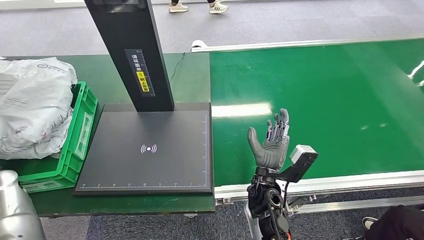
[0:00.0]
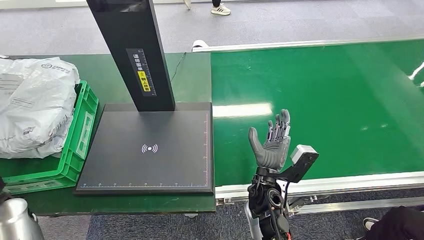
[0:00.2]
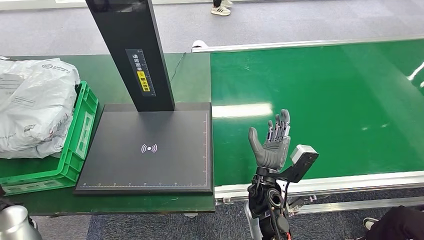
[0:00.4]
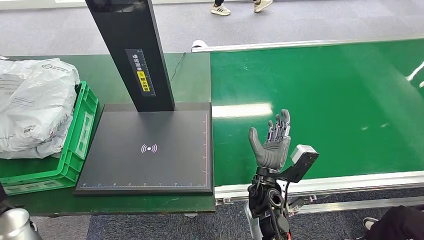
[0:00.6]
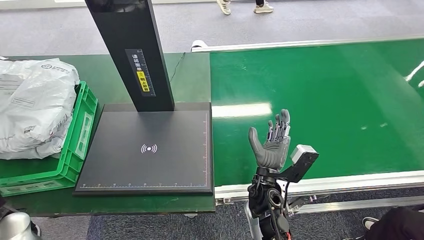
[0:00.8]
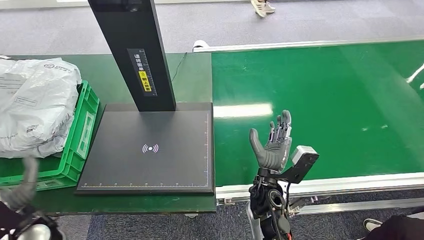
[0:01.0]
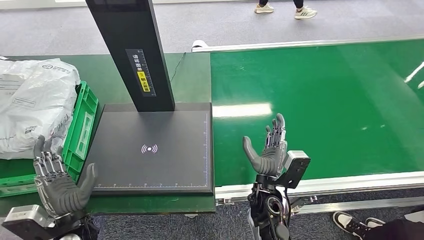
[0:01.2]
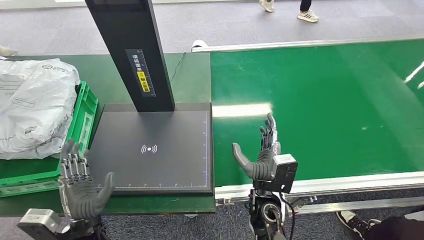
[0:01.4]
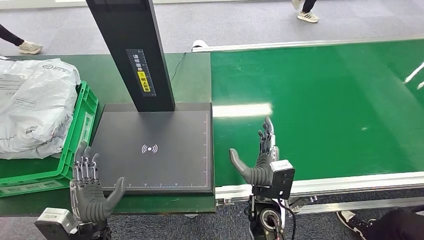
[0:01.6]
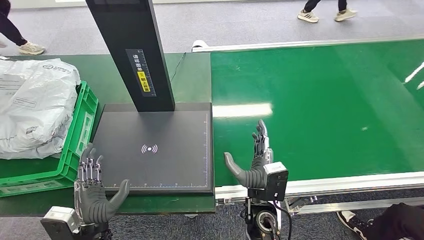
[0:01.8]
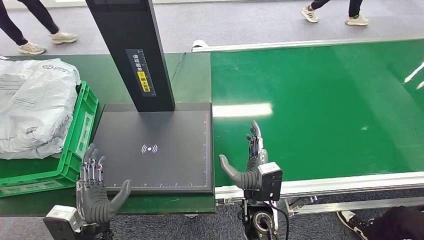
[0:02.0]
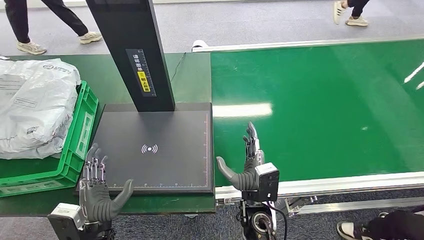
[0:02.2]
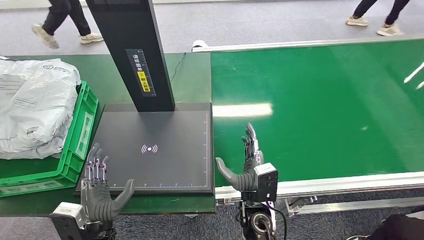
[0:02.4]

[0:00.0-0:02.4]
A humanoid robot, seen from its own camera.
Step, 0:00.0 to 0:02.4: Place the package into the parcel locker.
0:00.0 to 0:01.2: The left hand is displaced to the right and backward by approximately 25 cm.
0:01.2 to 0:02.4: The left hand moves about 5 cm.

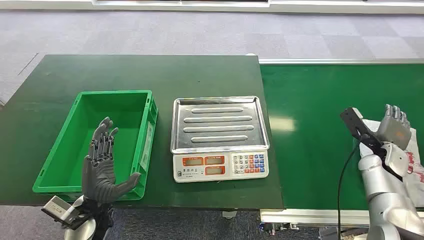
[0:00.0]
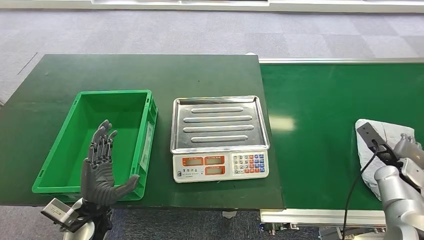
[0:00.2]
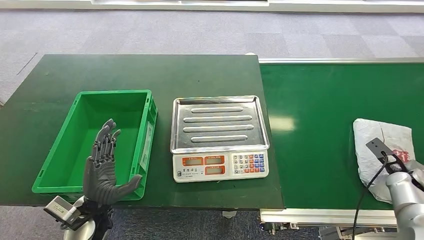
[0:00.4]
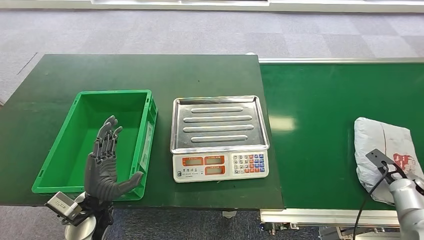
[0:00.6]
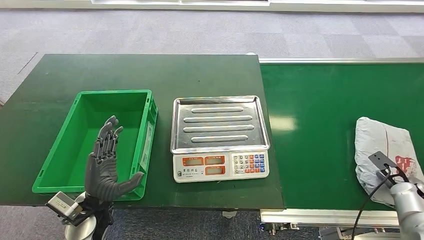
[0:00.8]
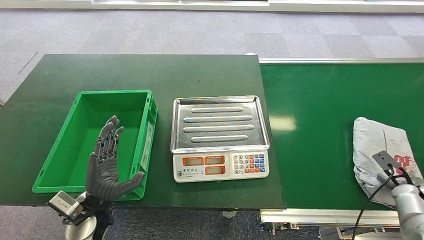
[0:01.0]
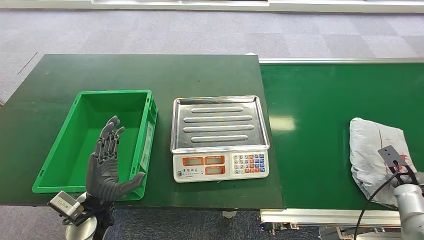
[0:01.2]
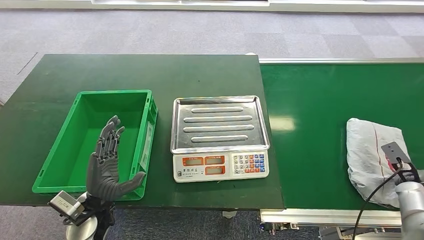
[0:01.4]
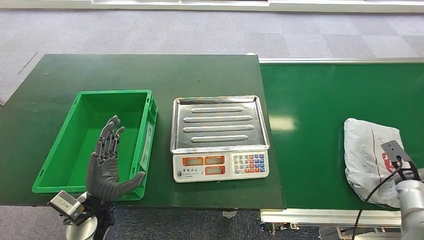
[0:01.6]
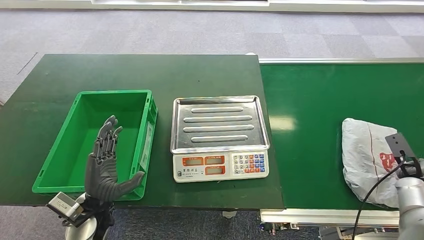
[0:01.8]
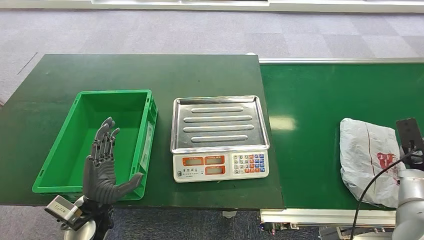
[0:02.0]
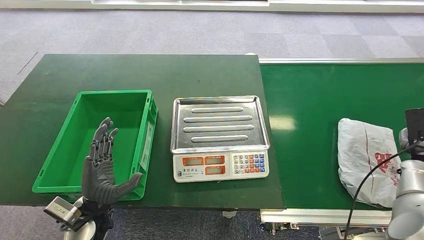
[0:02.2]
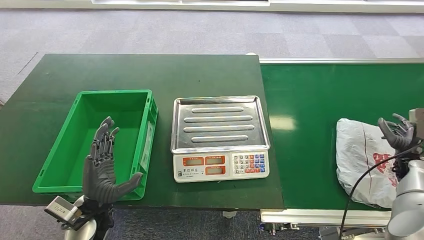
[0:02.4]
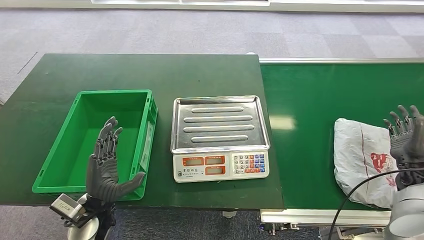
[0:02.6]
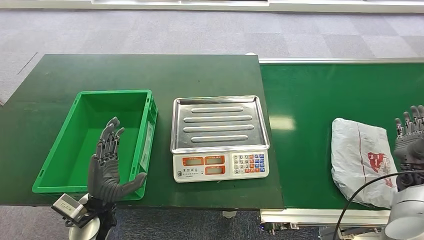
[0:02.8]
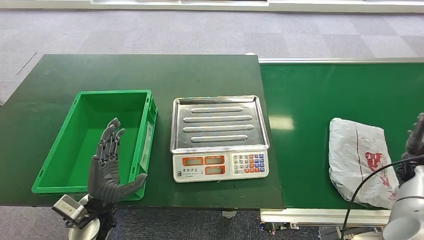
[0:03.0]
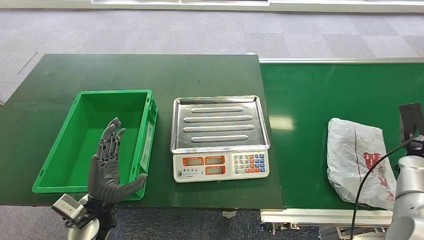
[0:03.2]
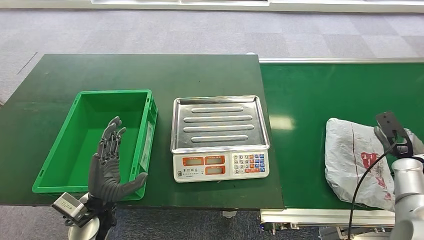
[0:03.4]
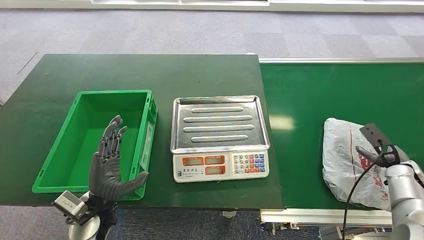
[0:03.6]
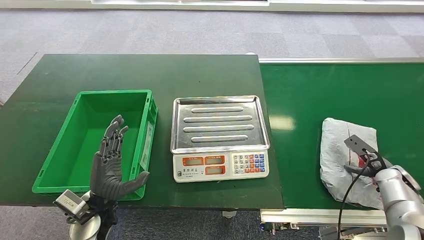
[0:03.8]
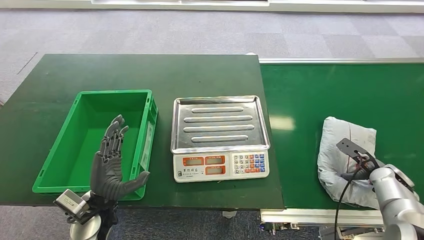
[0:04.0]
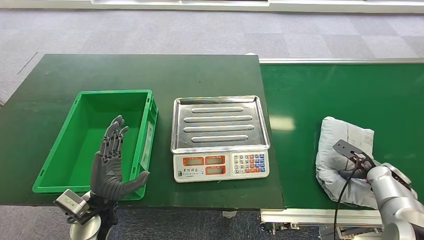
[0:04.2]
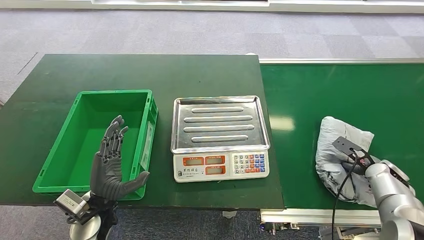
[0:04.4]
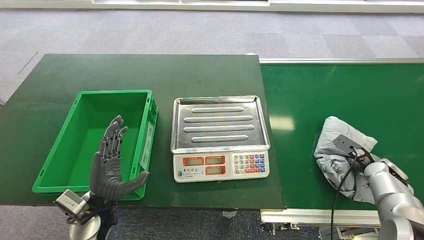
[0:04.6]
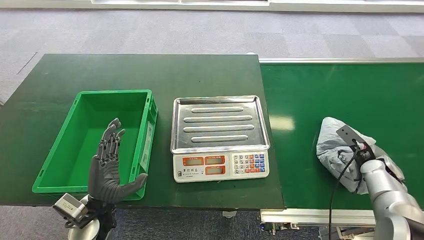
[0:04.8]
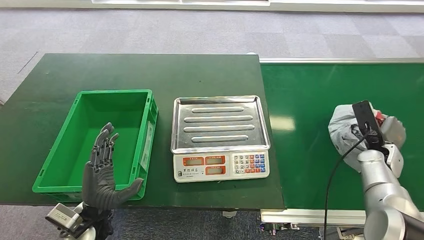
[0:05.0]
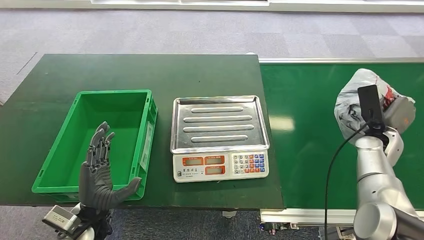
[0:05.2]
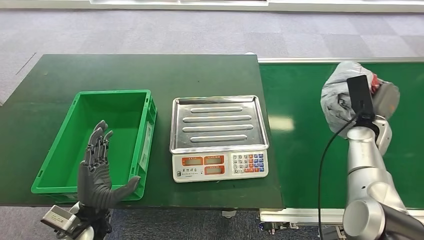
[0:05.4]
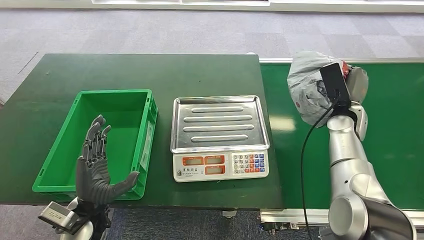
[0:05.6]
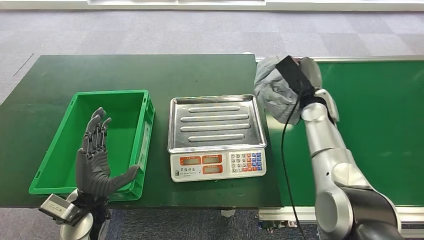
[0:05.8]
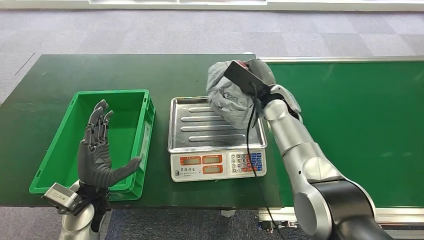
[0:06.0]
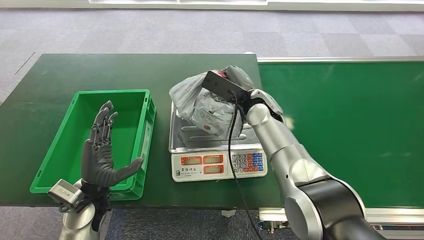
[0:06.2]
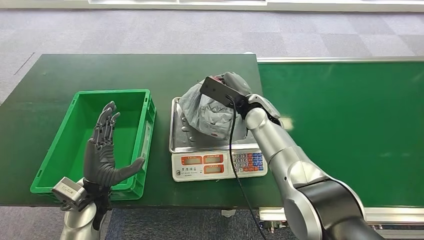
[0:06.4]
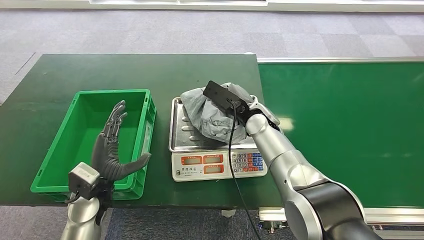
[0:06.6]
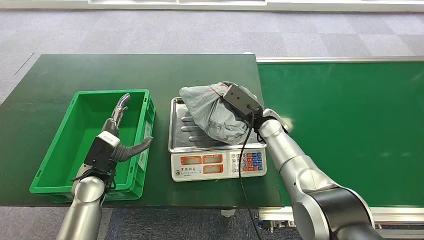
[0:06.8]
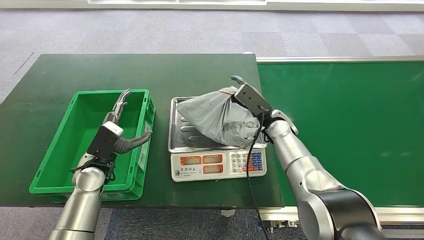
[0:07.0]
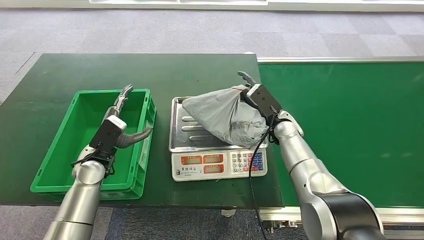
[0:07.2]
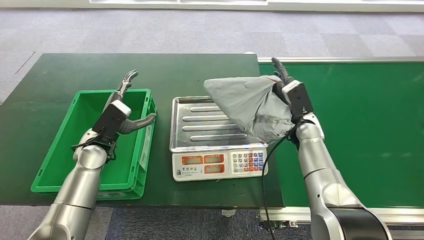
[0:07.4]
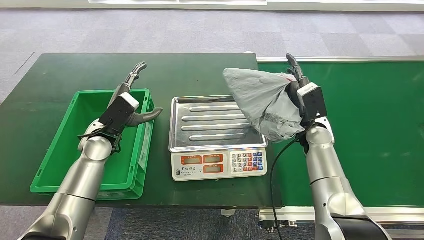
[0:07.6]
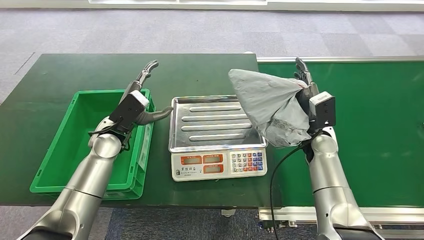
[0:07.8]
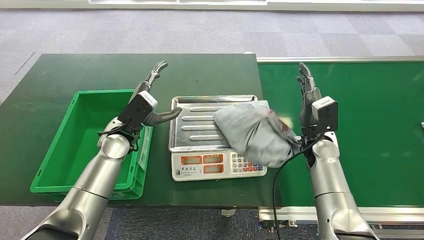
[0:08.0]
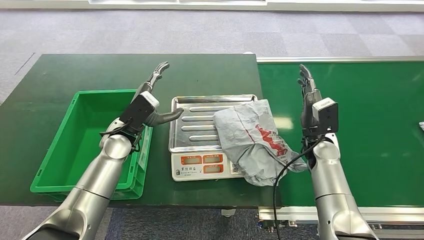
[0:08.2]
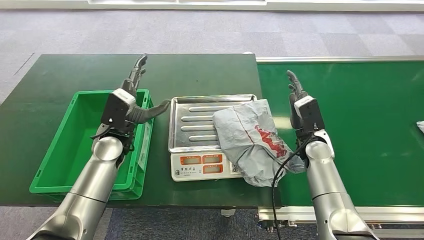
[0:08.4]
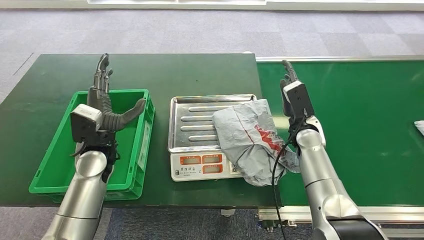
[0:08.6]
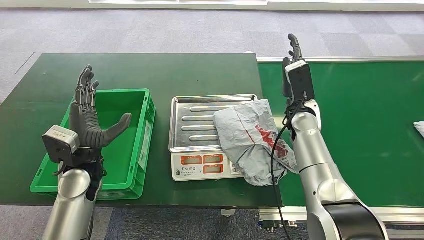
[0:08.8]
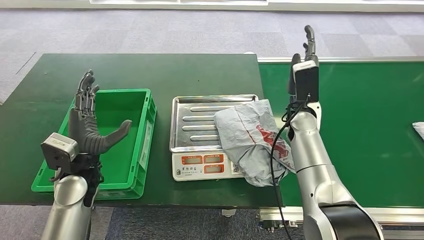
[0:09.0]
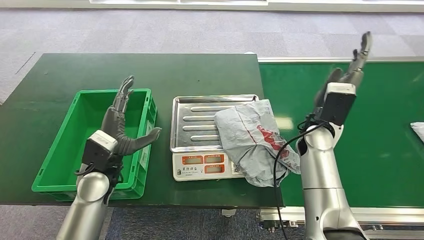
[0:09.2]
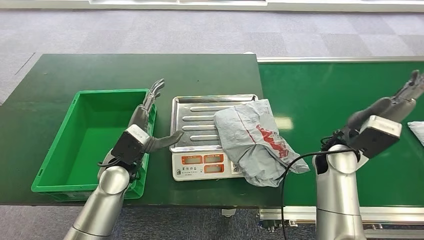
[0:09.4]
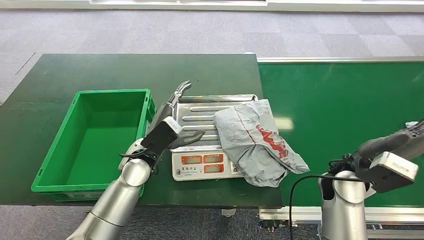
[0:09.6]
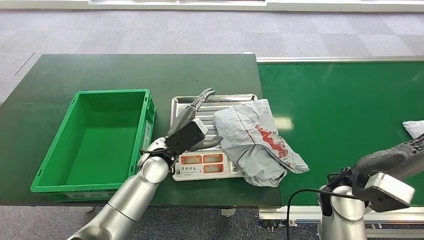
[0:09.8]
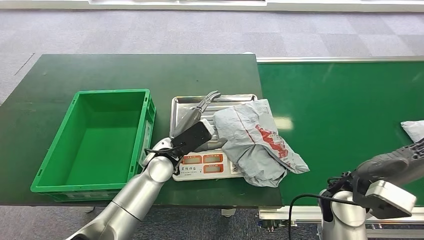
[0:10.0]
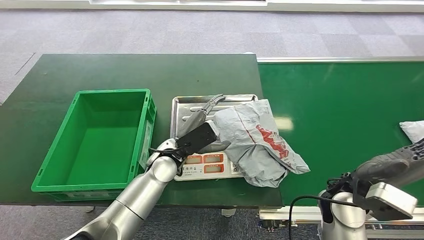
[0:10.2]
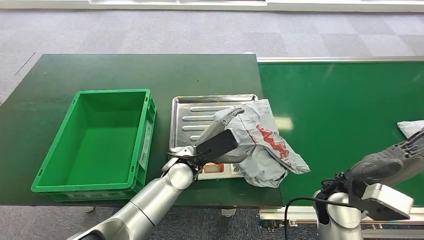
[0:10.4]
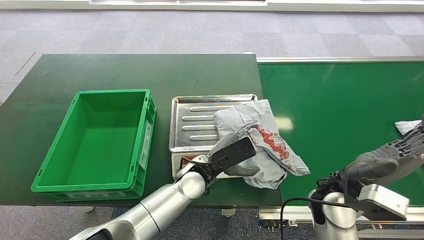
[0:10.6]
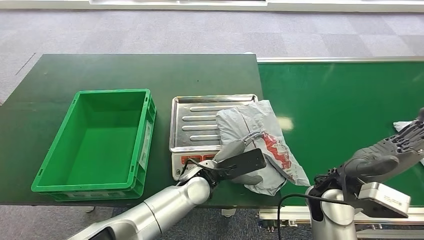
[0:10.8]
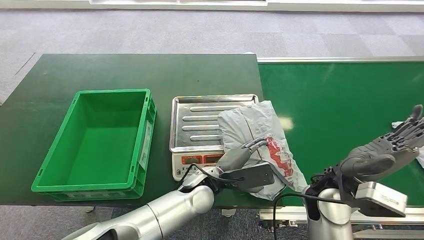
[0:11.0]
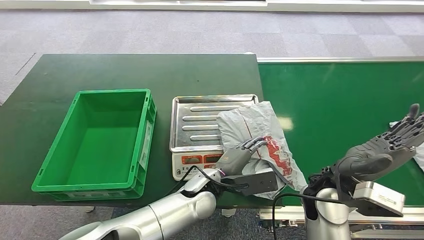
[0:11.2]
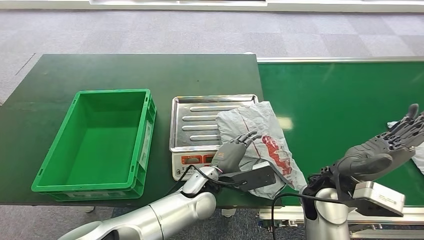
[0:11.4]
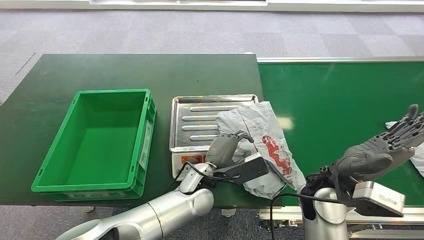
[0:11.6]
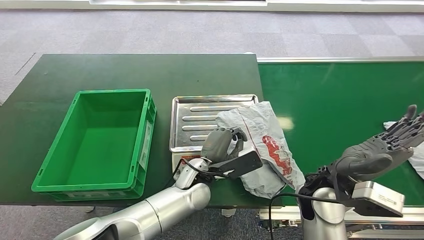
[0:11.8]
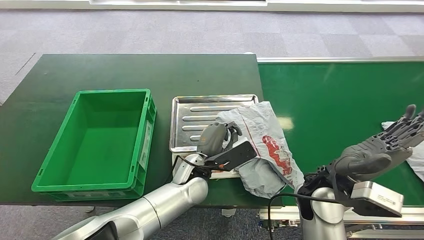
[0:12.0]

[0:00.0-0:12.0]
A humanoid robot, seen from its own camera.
Step, 0:00.0 to 0:05.4: Pick up the package from the conveyor belt.
Step, 0:05.6 to 0:09.0: Place the package onto the inbound machine.
0:01.6 to 0:03.0: The right hand moves some 5 cm.
0:03.0 to 0:04.4: The right hand moves some 5 cm.
0:10.4 to 0:12.0: The right hand changes place by approximately 5 cm.

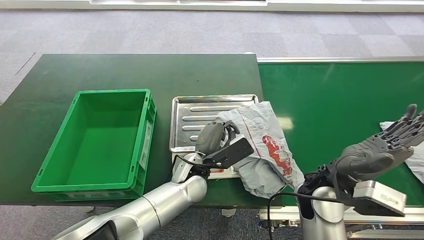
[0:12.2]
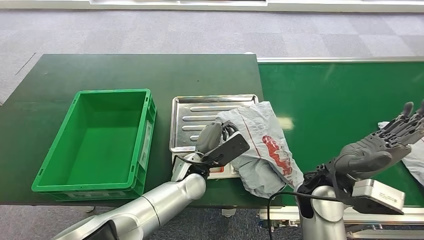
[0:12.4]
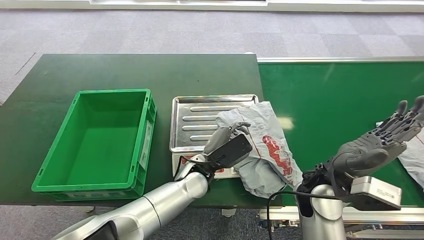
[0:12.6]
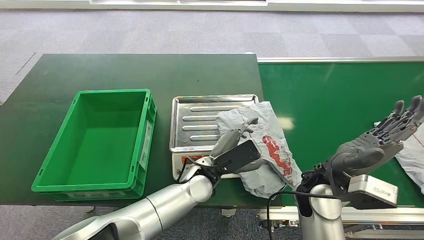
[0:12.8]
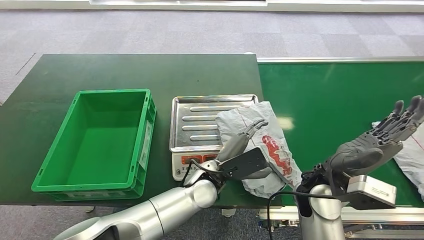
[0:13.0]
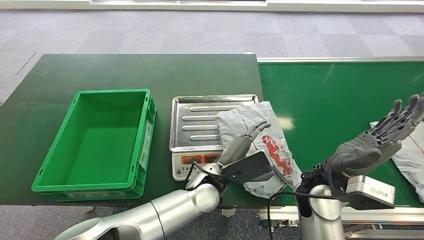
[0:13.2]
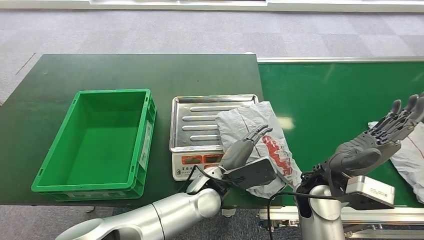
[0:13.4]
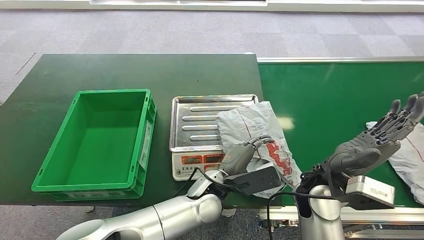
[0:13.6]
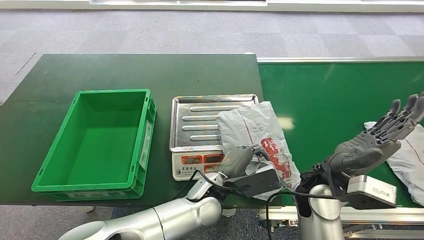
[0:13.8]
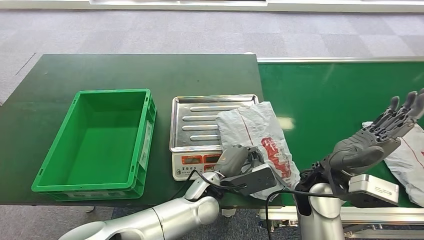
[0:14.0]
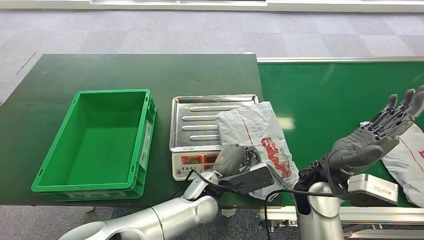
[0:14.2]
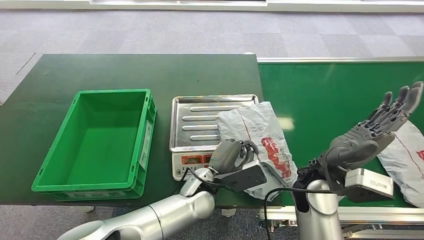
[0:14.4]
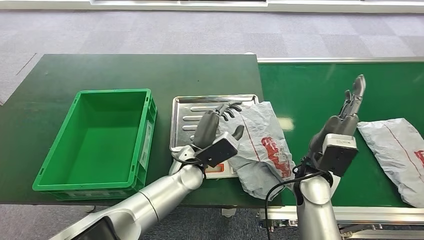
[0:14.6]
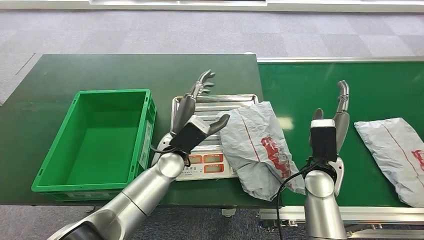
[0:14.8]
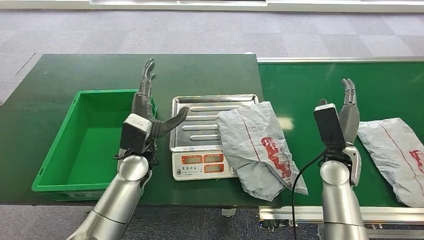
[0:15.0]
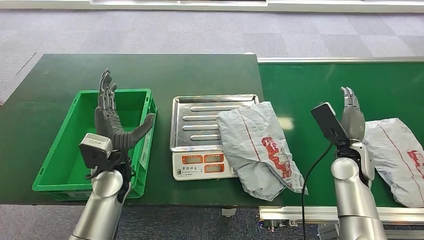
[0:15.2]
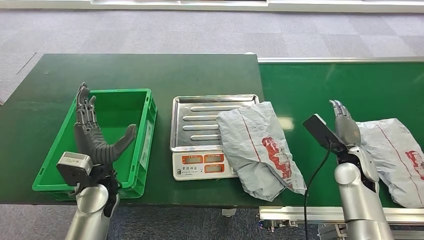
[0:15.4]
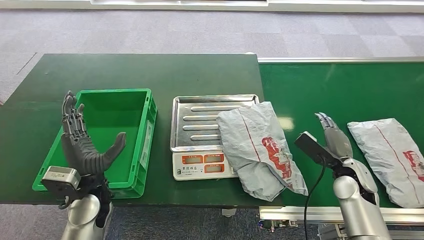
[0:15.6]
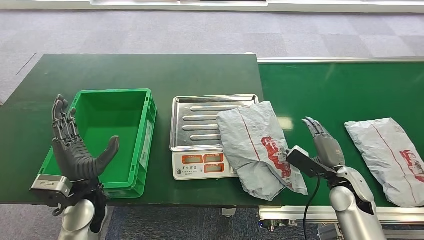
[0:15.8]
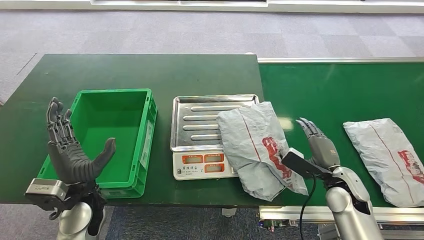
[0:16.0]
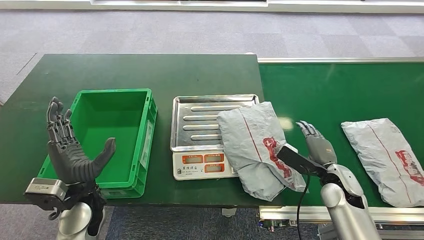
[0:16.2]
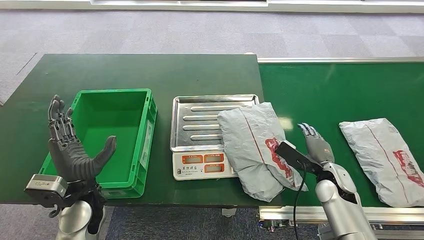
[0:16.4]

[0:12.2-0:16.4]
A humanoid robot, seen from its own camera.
0:12.2 to 0:13.6: The left hand ends up about 5 cm from where it was.
0:15.0 to 0:16.4: The left hand heads to the left and backward, covering about 15 cm. The right hand moves downward, approximately 10 cm.
